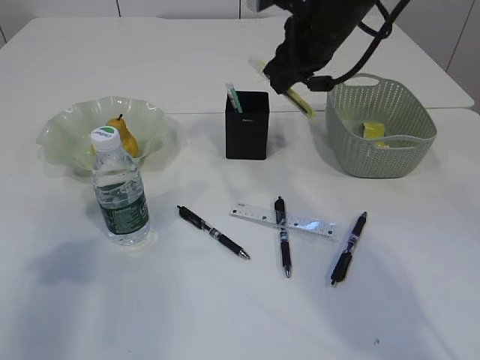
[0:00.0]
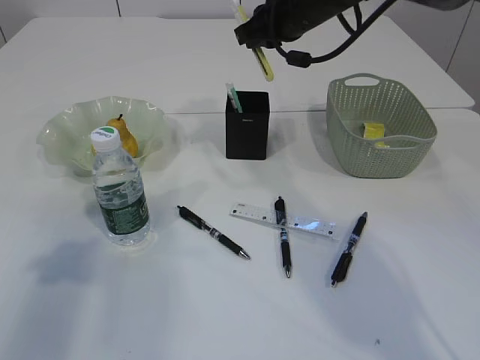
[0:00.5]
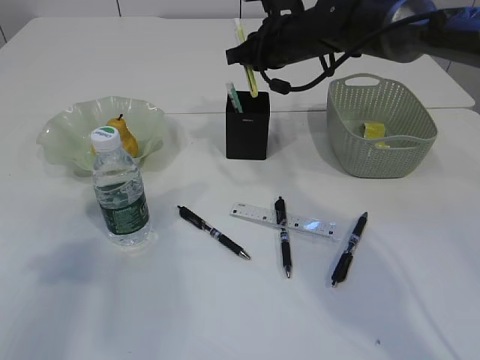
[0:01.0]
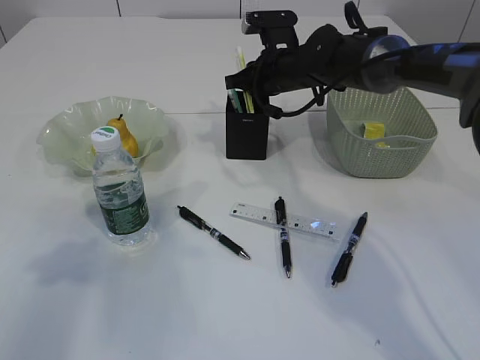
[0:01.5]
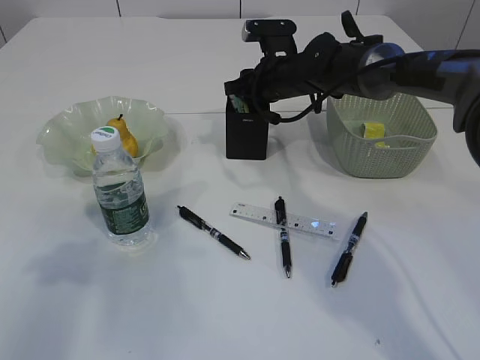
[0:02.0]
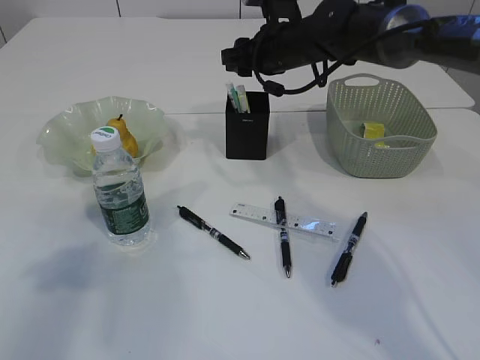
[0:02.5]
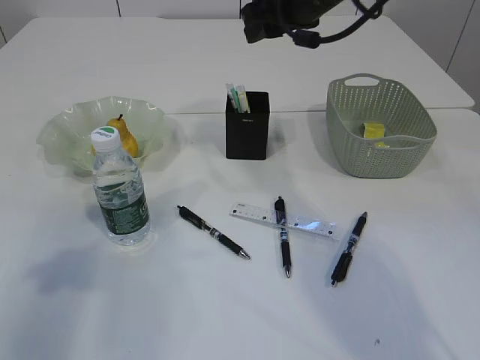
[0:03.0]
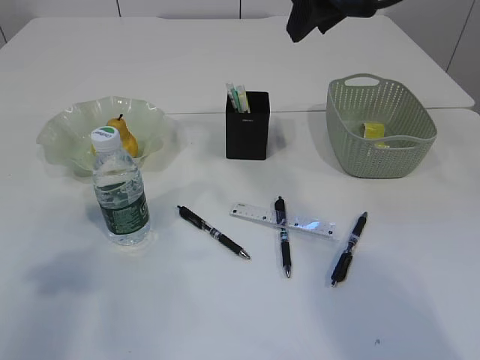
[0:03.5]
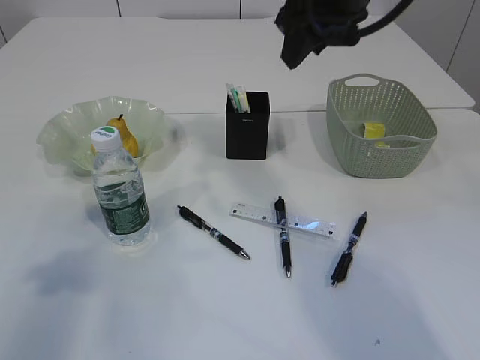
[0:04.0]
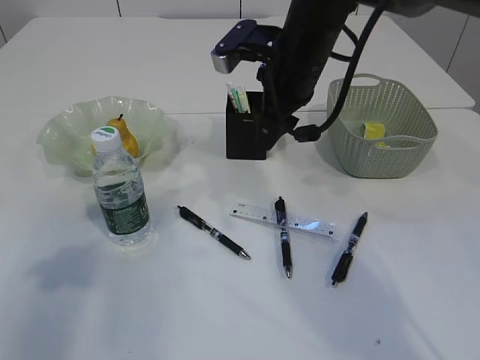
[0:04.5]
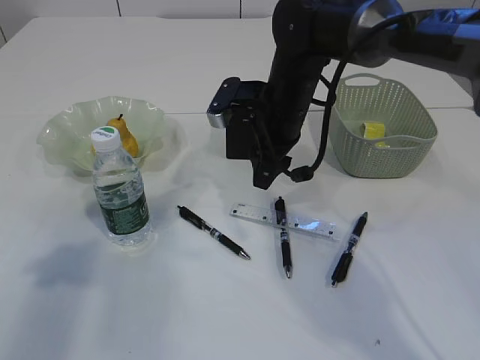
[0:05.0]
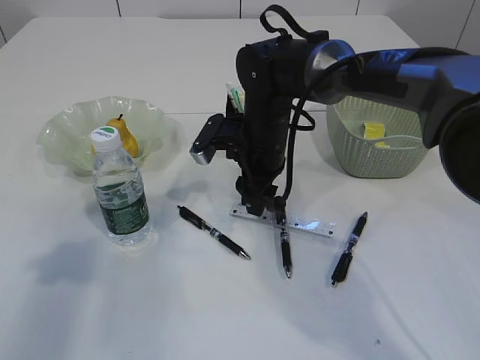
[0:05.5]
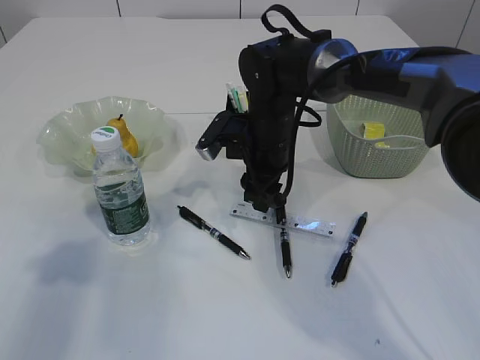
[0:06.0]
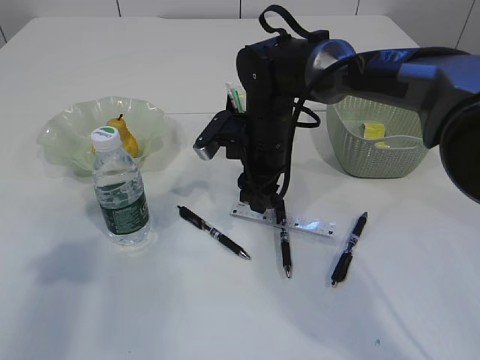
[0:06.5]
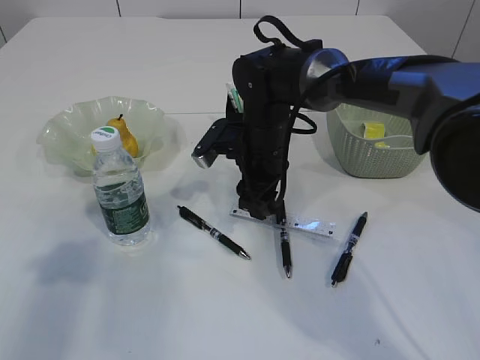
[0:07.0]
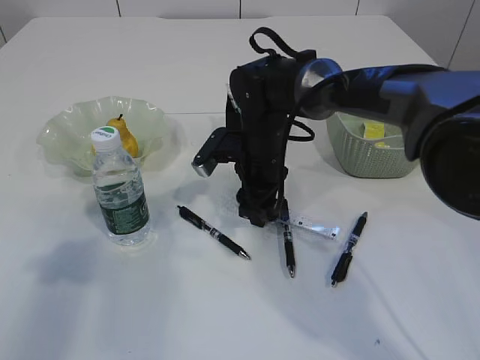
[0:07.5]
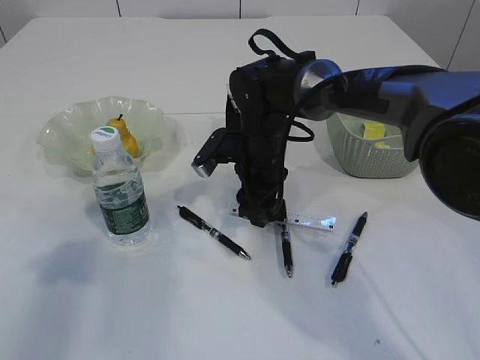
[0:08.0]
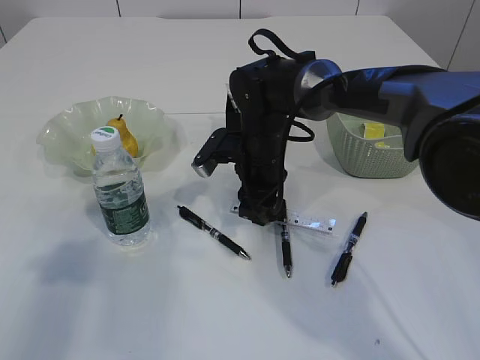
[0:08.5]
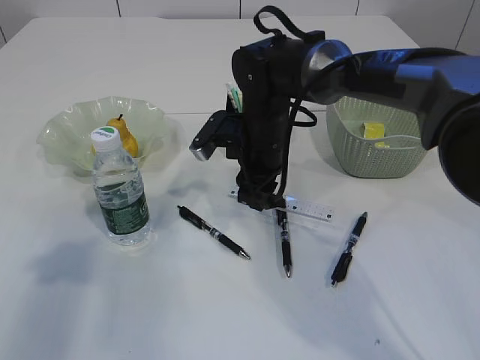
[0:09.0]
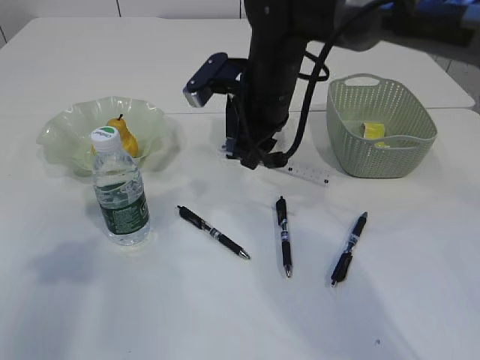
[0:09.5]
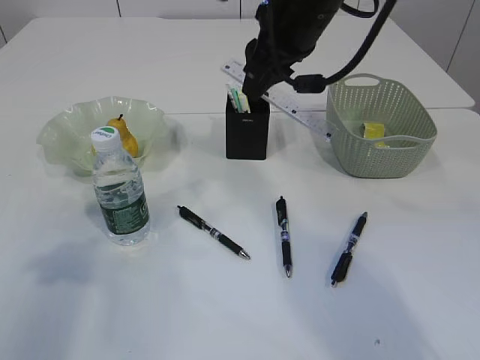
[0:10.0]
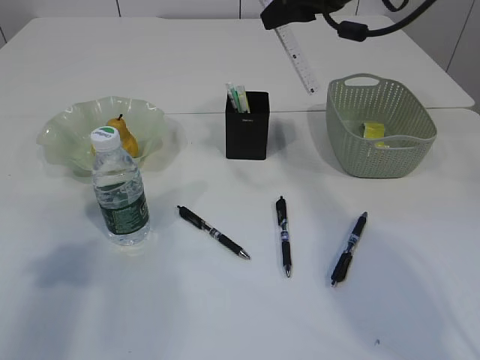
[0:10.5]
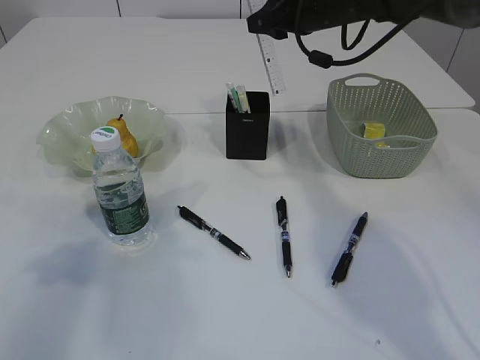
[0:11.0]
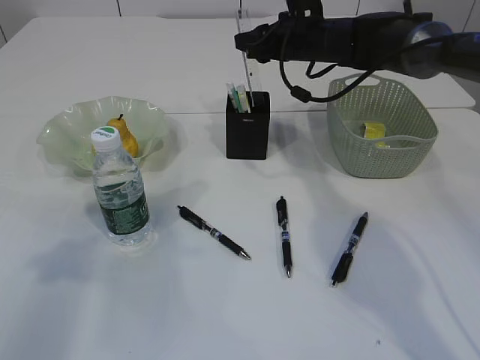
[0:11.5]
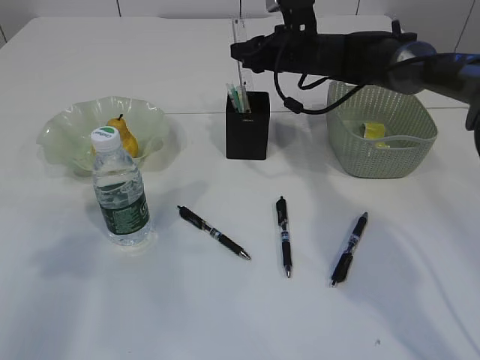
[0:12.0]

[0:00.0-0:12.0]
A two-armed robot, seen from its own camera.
Step, 0:00.0 to 0:04.5: place the yellow knife into the pen holder.
Step, 0:05.0 to 0:10.0: pick up the ruler.
0:00.0 to 0:02.0: The right gripper is displaced downward and forward by roughly 15 cm, and opens up.
0:02.0 to 0:04.0: The right gripper heads upward and backward, covering approximately 20 cm.
0:04.0 to 0:06.0: The right gripper goes some 20 cm downward.
0:06.0 to 0:08.0: There are only small adjustments of the grippers.
0:08.0 to 0:10.0: The right gripper travels upward by about 20 cm.
0:10.0 to 0:12.0: The right gripper goes some 20 cm forward and downward.

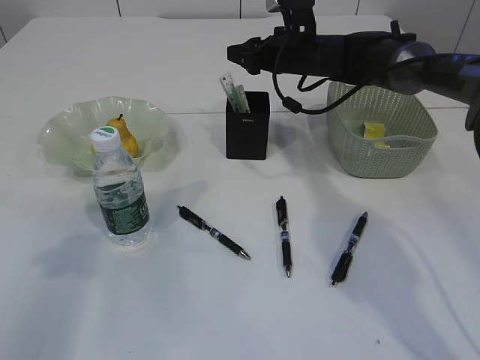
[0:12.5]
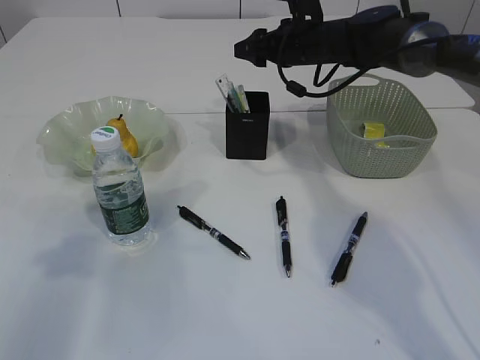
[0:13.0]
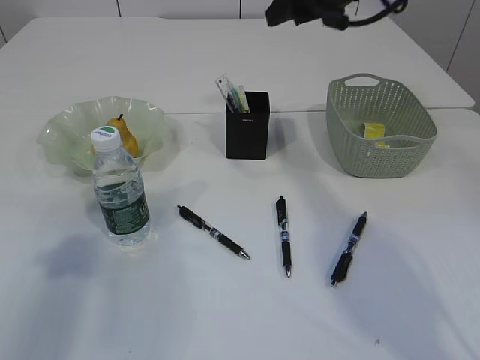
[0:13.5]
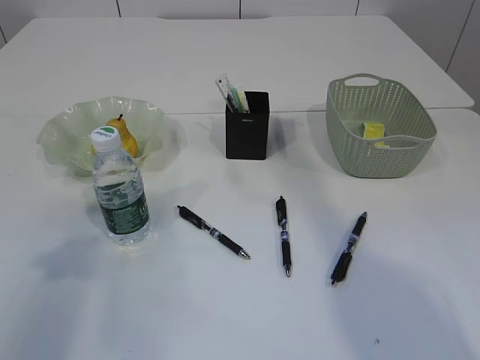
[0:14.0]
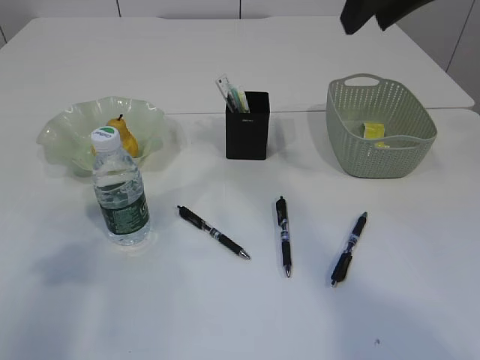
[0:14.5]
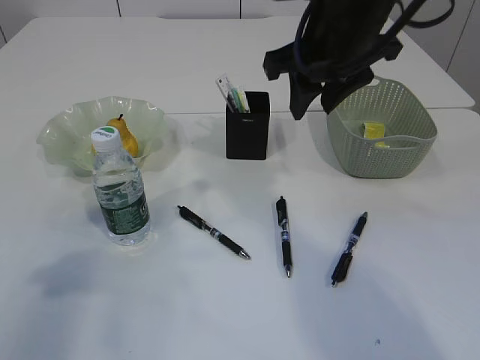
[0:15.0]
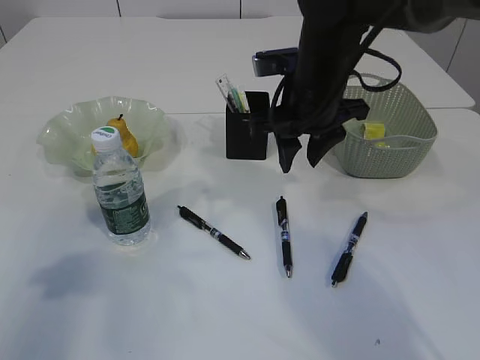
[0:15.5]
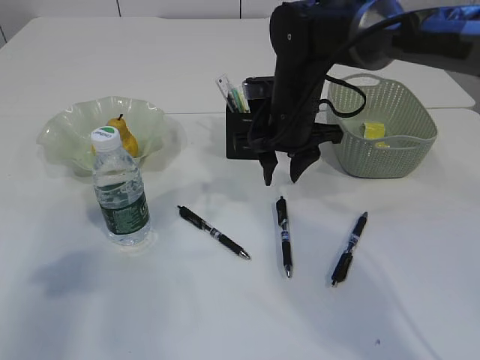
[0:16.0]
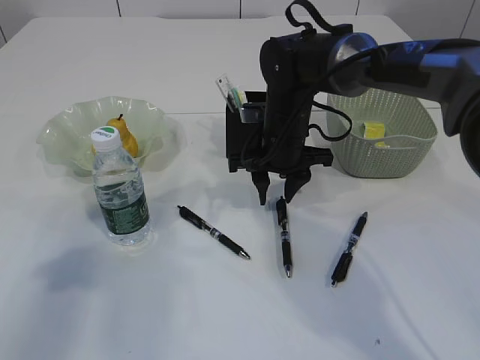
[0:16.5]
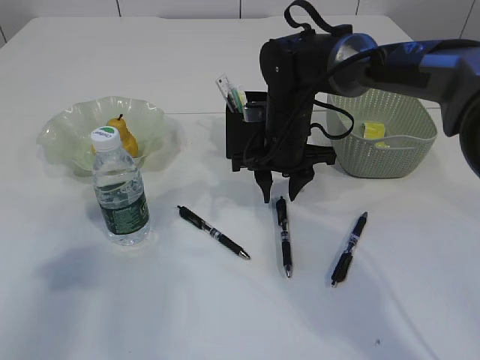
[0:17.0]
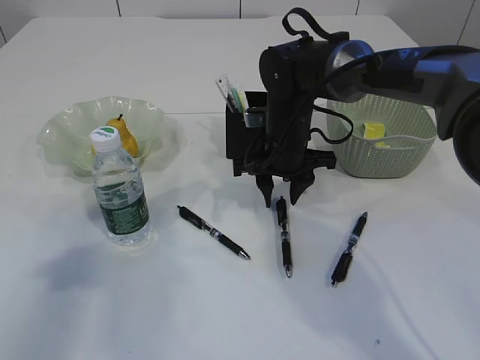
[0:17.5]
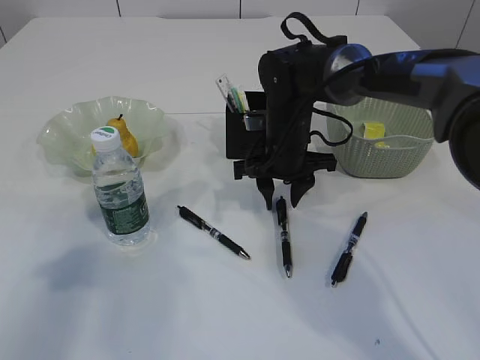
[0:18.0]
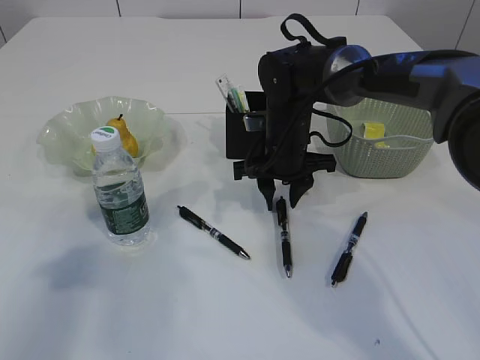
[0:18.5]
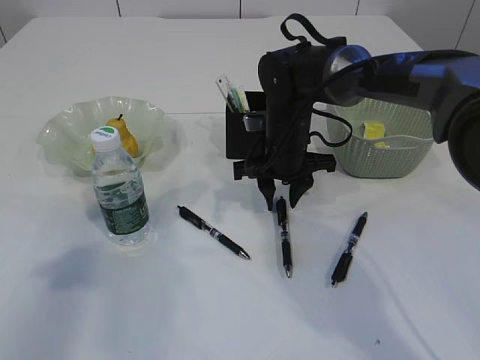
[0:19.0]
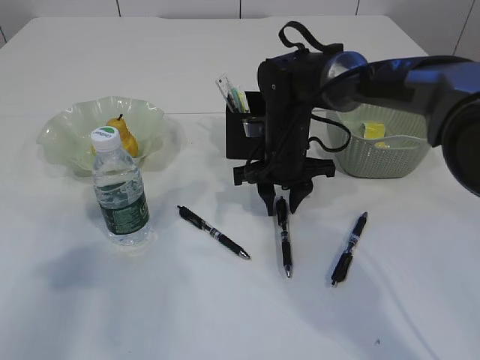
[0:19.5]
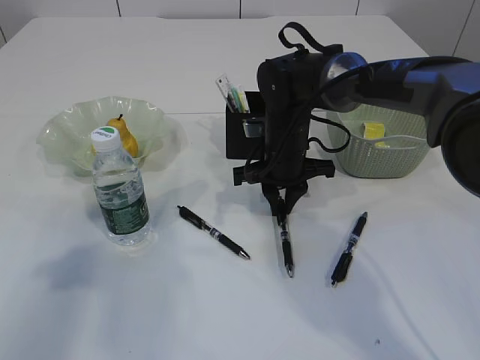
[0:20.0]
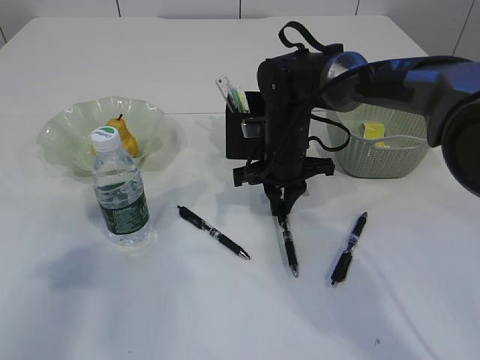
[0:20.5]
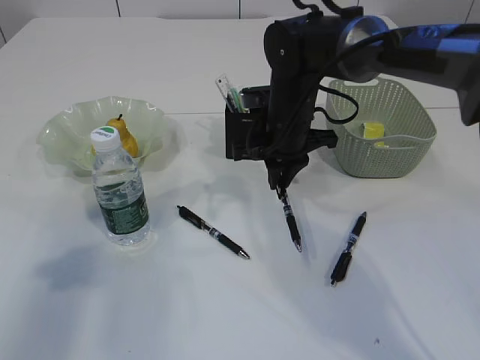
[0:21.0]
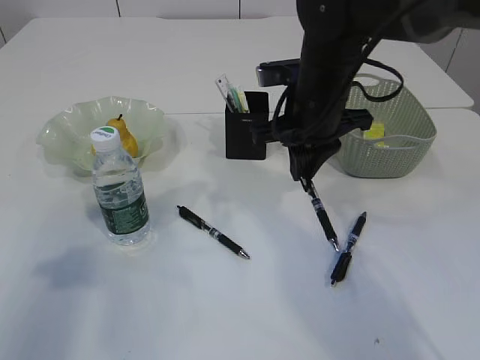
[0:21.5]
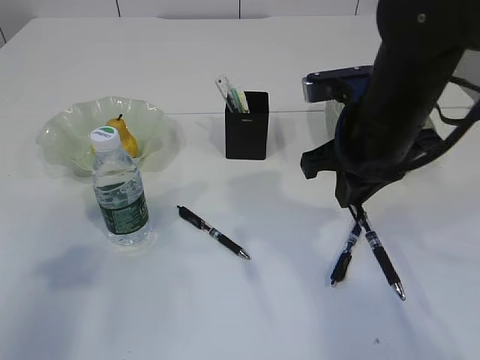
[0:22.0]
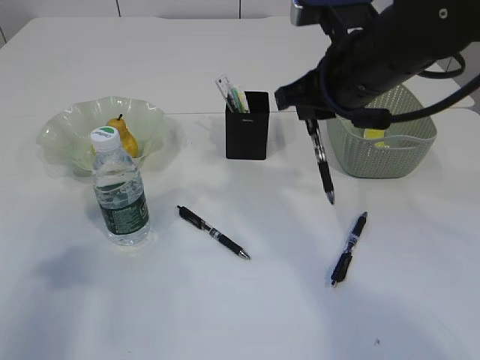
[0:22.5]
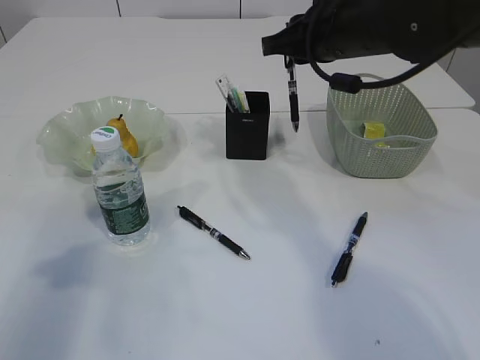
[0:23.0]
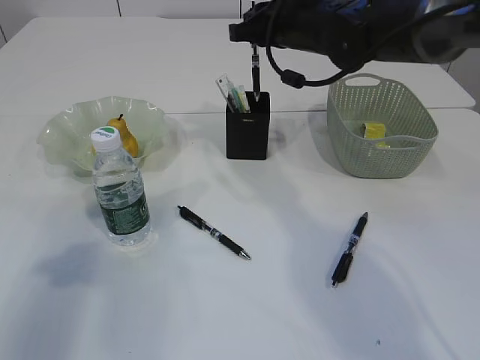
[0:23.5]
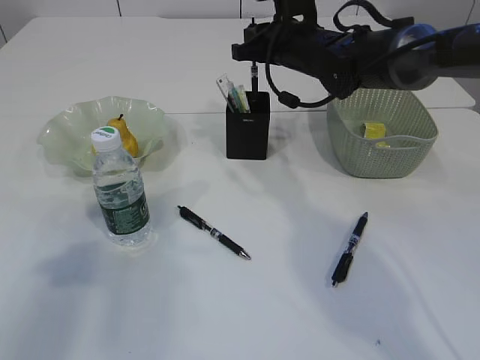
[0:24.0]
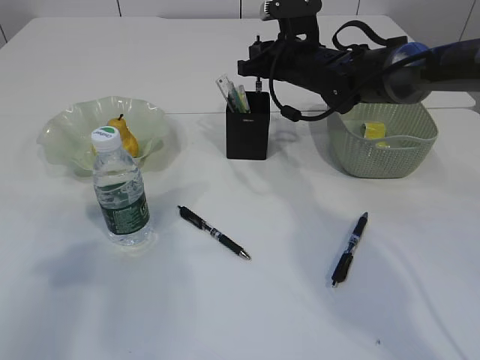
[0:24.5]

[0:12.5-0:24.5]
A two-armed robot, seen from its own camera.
Step, 0:12.5 to 0:14.5: Place the ruler into the pen holder.
Step, 0:15.0 to 0:21.5: Pick up the pen with right arm.
0:12.5 to 0:14.5: The right gripper is displaced backward and upward by approximately 30 cm.
0:14.5 to 0:16.5: The right gripper goes approximately 30 cm downward and forward.
0:16.5 to 0:18.5: The grippers make only small movements.
0:18.5 to 0:20.5: The right gripper closes its fingers.
0:20.5 to 0:22.5: The right gripper goes about 20 cm upward and backward.
0:22.5 to 0:24.5: The right gripper shifts roughly 20 cm forward and downward.

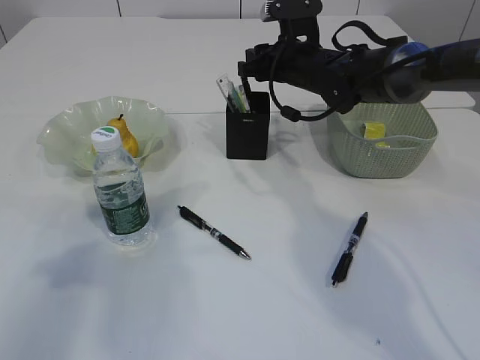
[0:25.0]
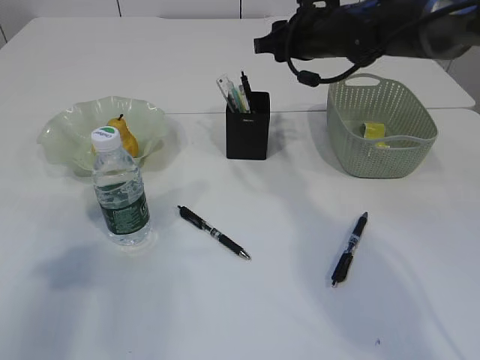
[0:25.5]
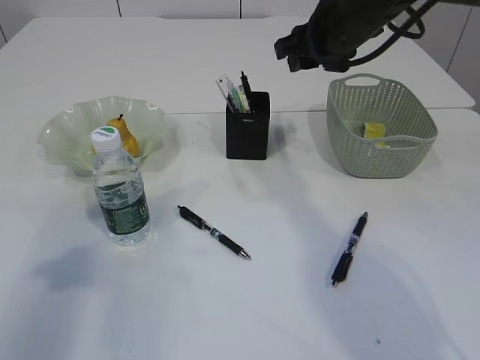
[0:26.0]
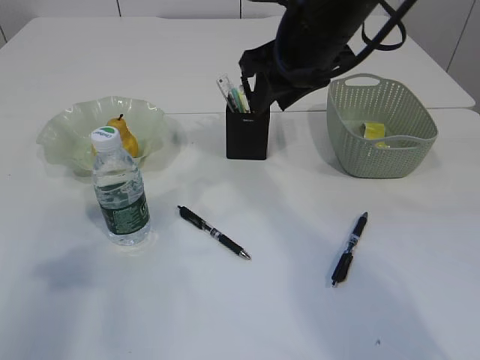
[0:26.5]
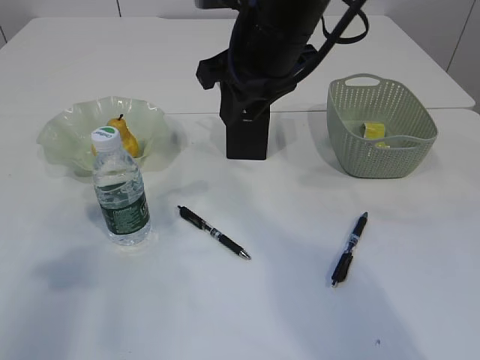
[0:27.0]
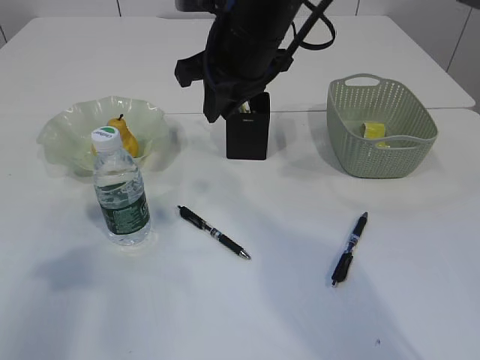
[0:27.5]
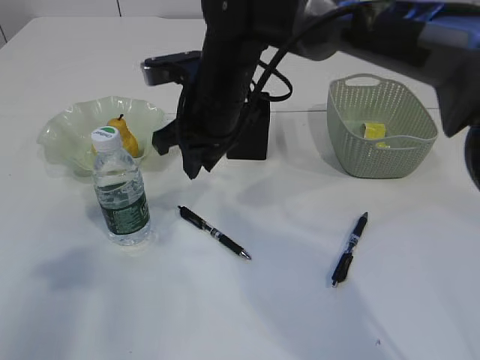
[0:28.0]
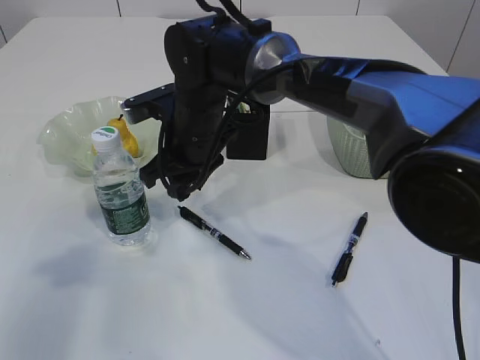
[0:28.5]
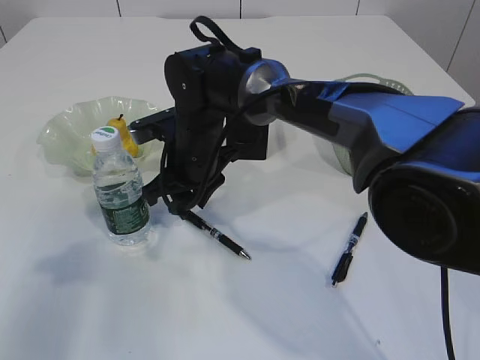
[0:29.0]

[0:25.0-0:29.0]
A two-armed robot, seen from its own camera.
0:25.0 to 0:27.0: The right gripper travels backward, upward and to the left by approximately 20 cm.
0:27.0 to 0:29.0: The right gripper moves downward and to the left, roughly 20 cm.
